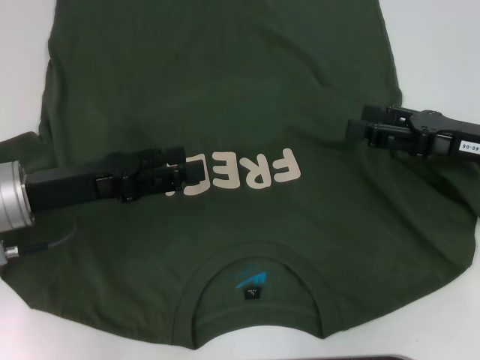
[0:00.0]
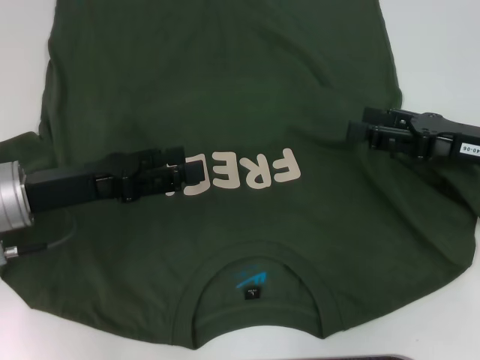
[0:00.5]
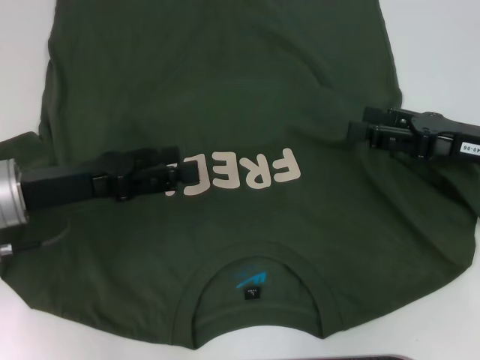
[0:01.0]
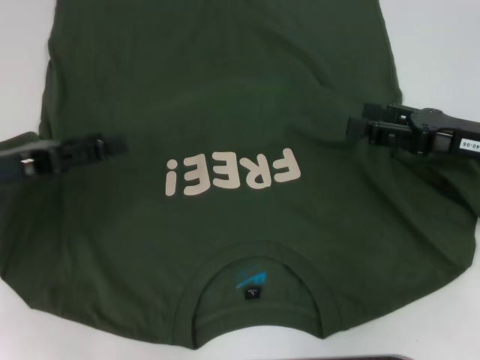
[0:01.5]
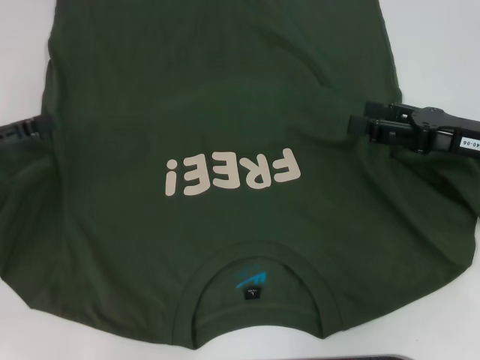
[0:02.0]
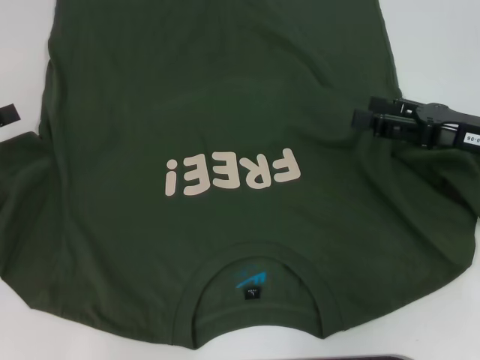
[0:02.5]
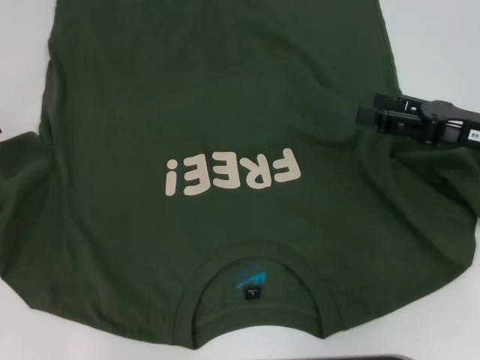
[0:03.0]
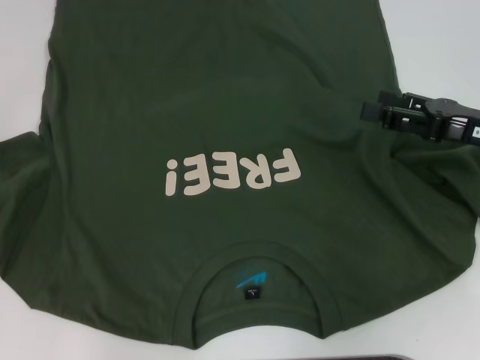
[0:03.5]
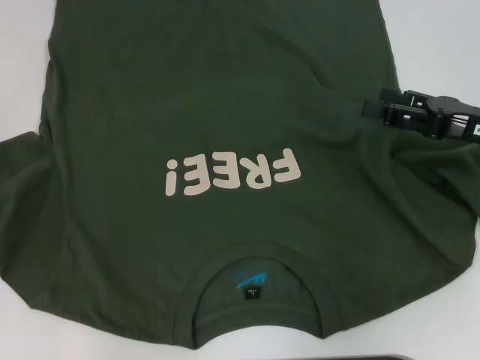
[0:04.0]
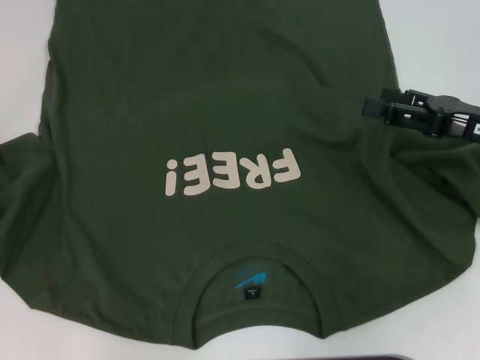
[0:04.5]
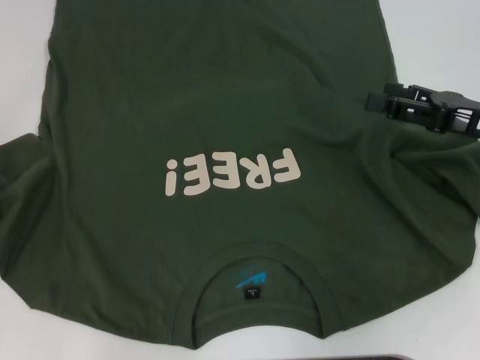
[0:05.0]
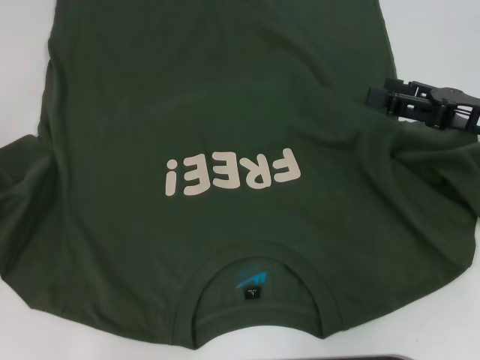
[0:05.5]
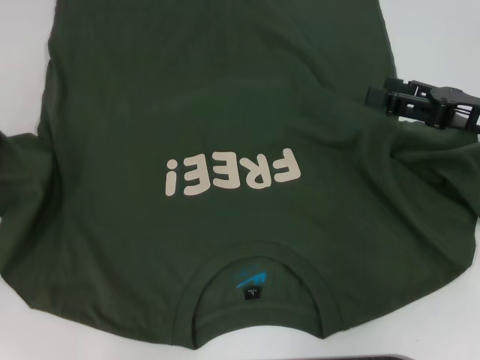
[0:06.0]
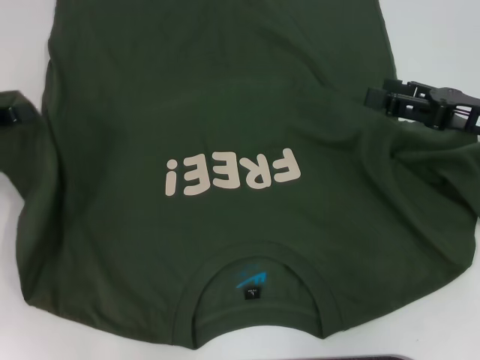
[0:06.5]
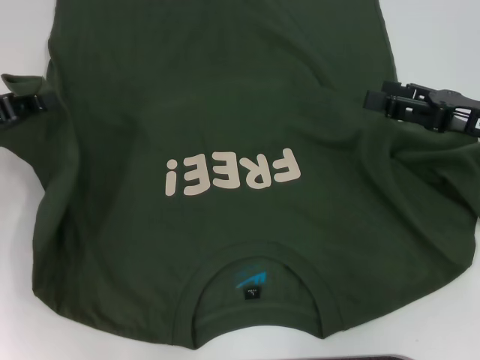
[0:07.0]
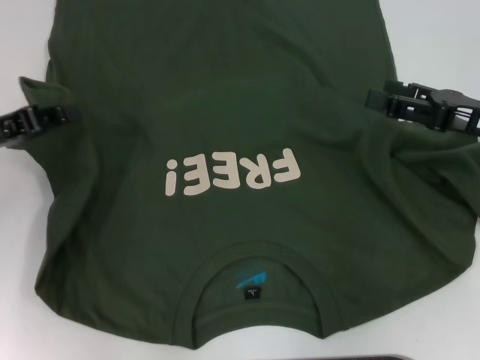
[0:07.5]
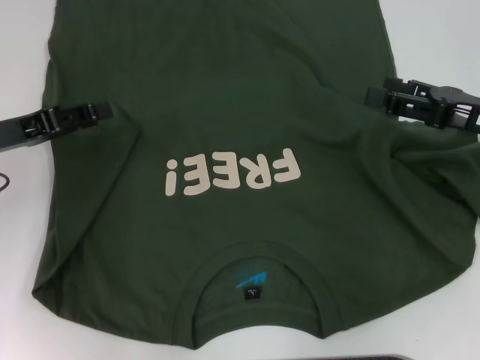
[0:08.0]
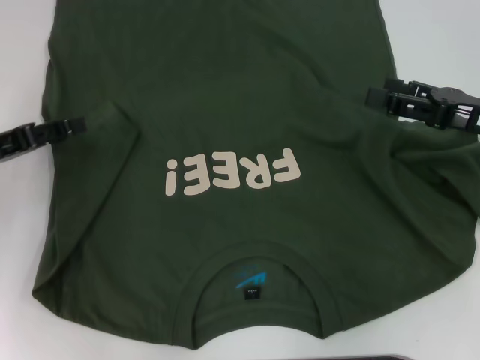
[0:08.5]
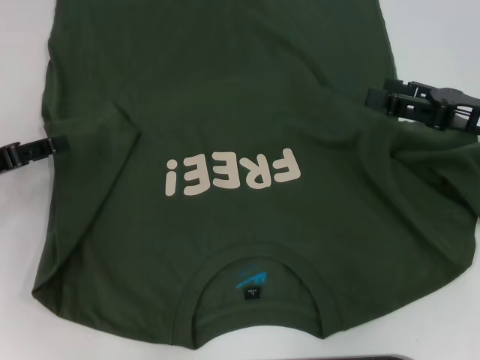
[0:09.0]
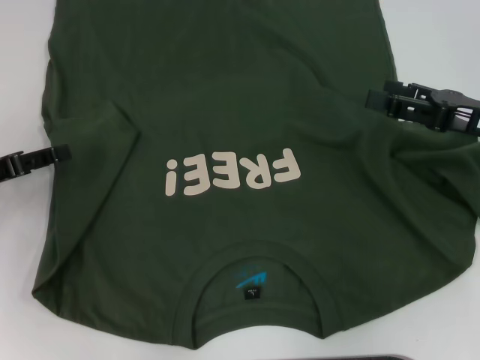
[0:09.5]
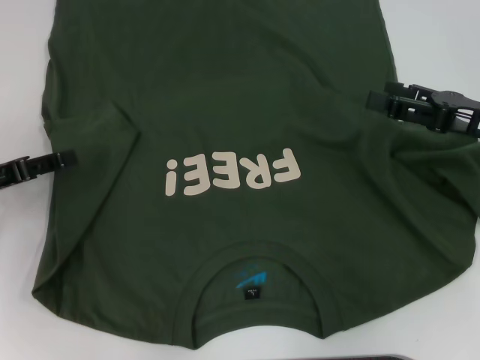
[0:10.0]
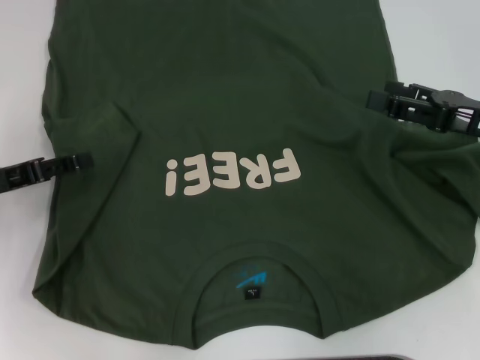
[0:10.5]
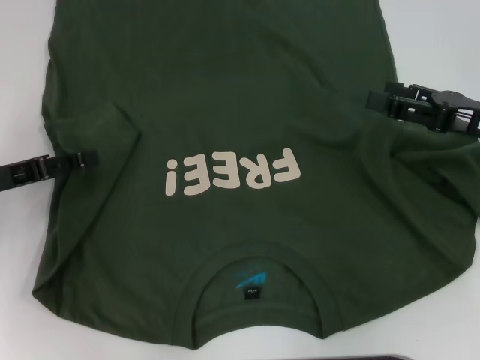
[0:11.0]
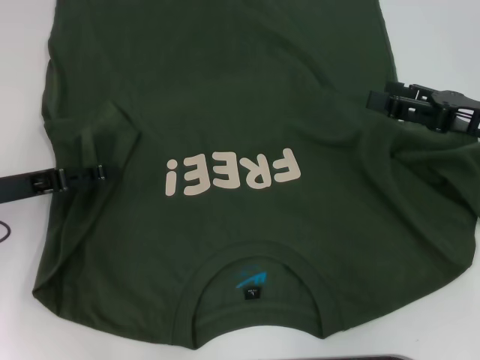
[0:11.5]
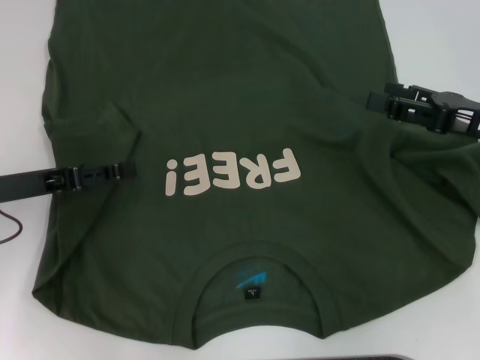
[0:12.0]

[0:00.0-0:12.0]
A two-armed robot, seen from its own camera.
0:00.0 to 0:02.0: The left gripper goes roughly 10 cm to the left.
0:04.0 to 0:06.0: The left gripper closes.
0:06.0 to 0:08.0: The left gripper heads to the right, covering roughly 10 cm.
0:08.0 to 0:10.0: The left gripper moves some 5 cm, and opens.
0:10.0 to 0:12.0: The grippers stay close to where they were, moving slightly.

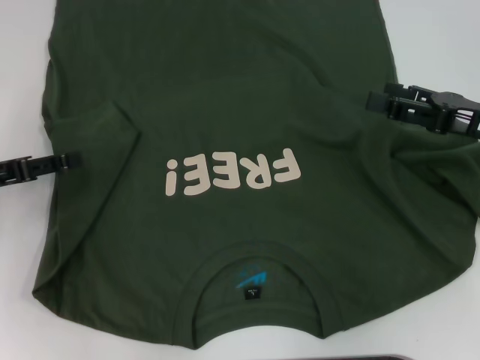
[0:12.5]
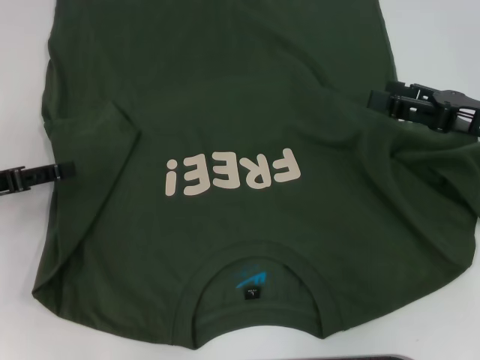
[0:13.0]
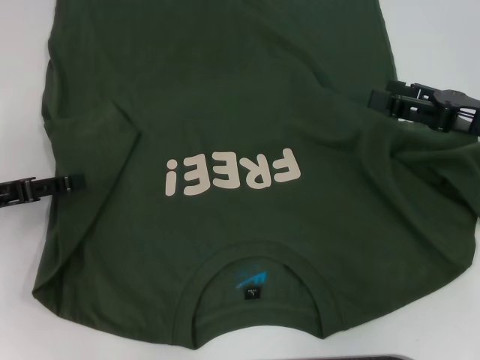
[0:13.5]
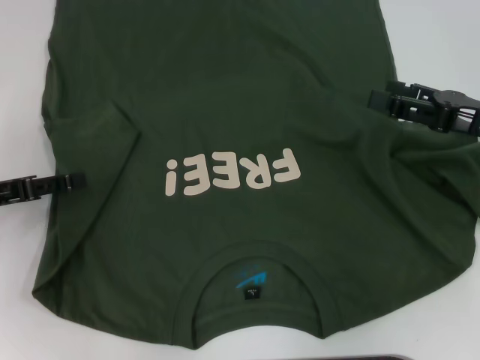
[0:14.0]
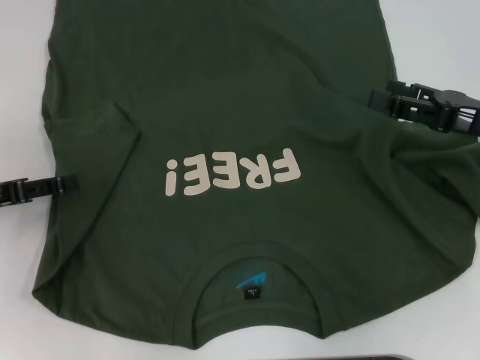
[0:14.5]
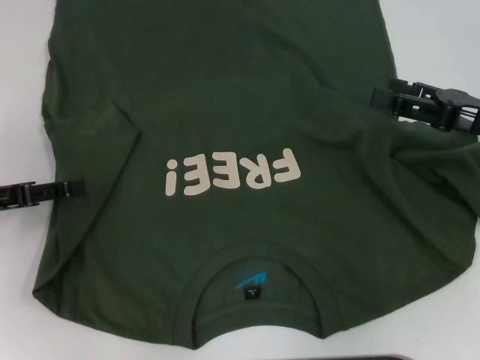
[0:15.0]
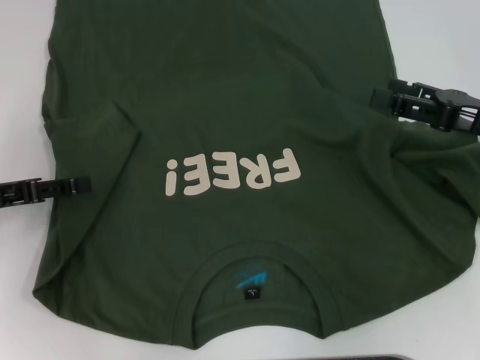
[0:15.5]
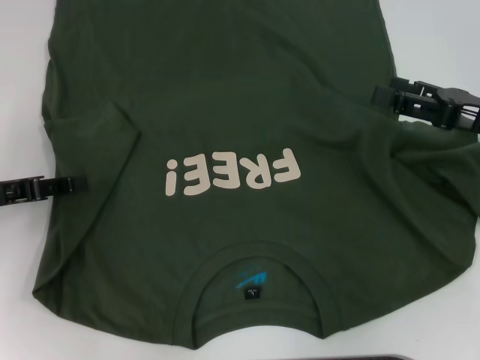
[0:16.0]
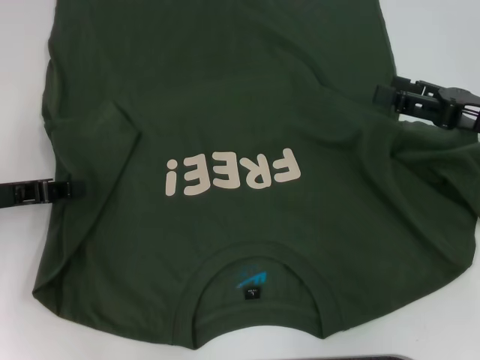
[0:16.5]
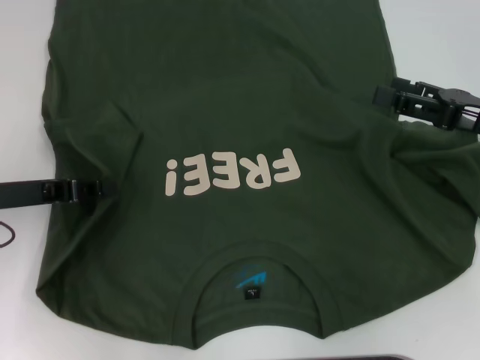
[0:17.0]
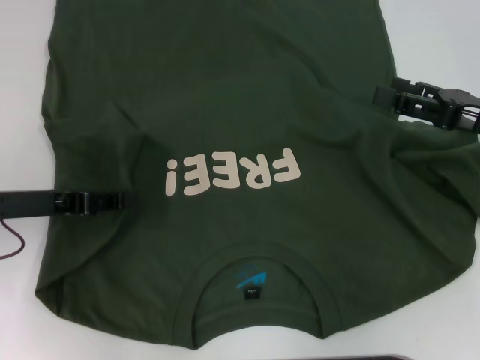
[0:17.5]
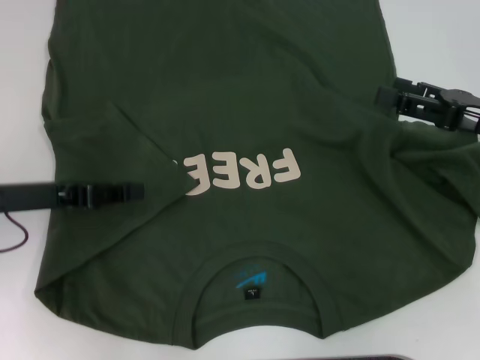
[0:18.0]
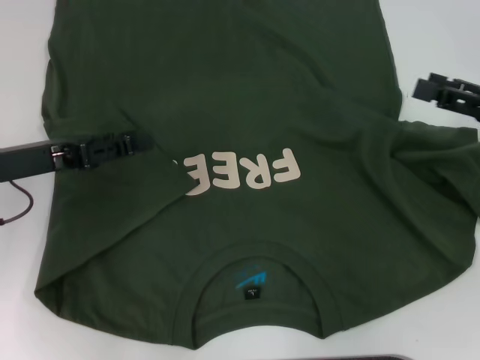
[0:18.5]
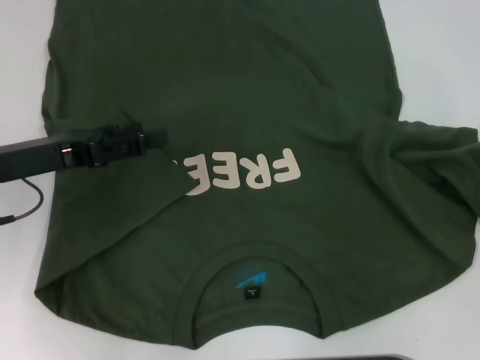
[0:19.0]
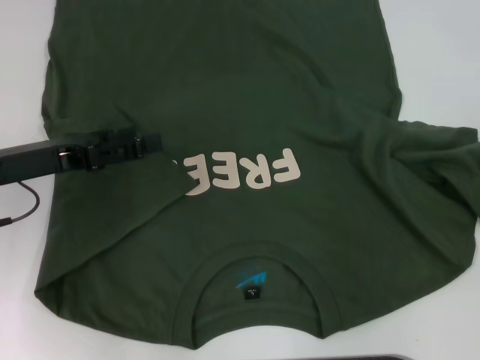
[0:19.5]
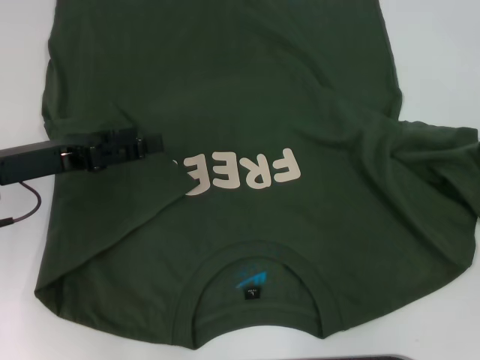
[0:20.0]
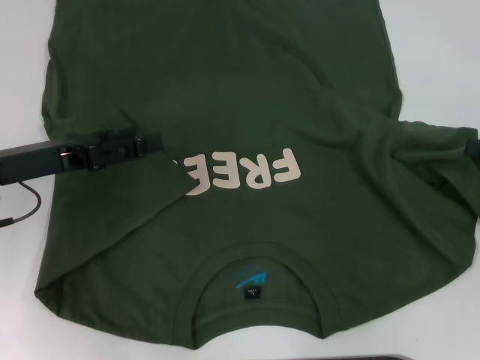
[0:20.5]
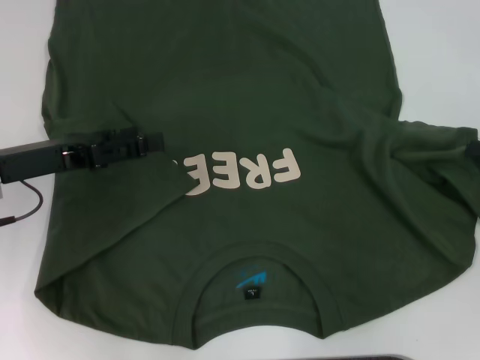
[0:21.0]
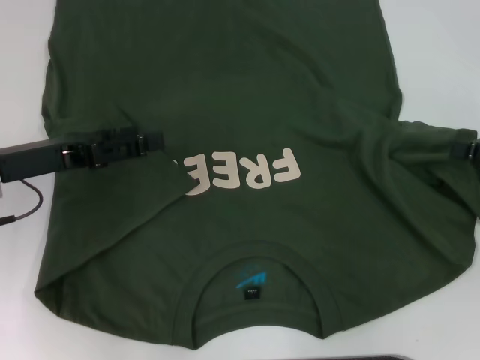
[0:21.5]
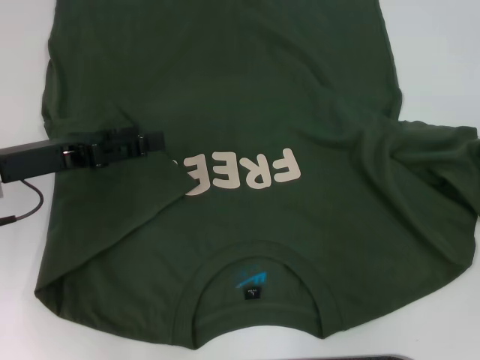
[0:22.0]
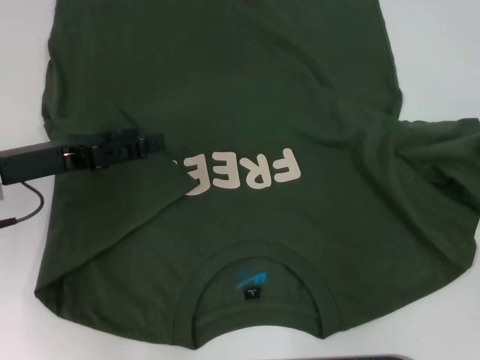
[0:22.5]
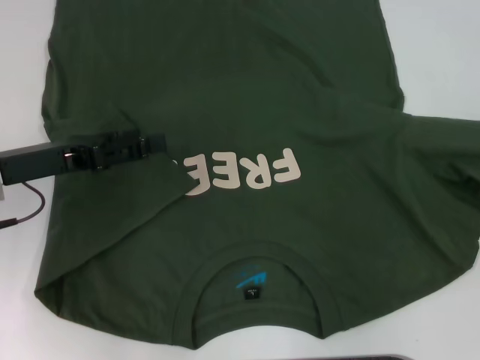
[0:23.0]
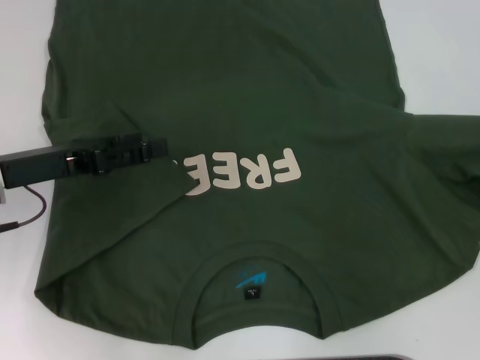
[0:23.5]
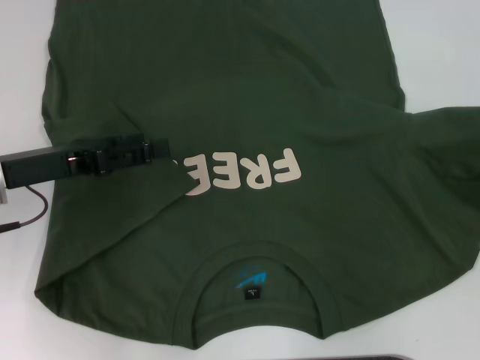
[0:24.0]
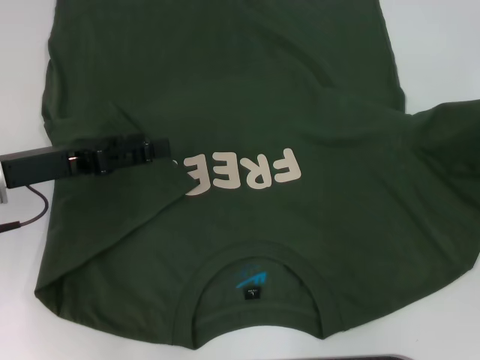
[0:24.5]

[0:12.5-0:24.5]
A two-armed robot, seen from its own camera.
Step, 0:12.5 to 0:17.5: Fold the bottom left sleeve with your left hand.
0:12.5 to 0:14.5: The grippers move only a little.
0:16.5 to 0:18.5: The left gripper shifts by some 5 cm.
0:18.5 to 0:20.5: The right gripper goes about 5 cm to the right. Meanwhile the left gripper opens its fingers.
0:22.5 to 0:24.5: There are only small adjustments of the grippers.

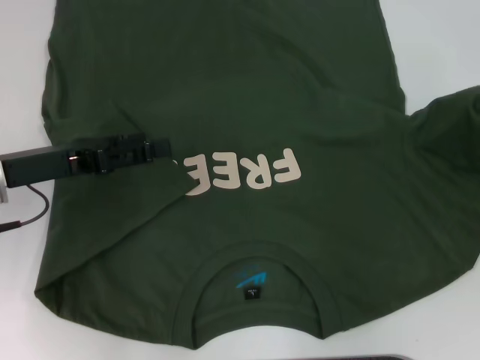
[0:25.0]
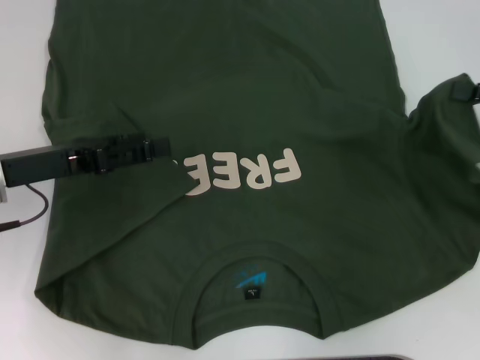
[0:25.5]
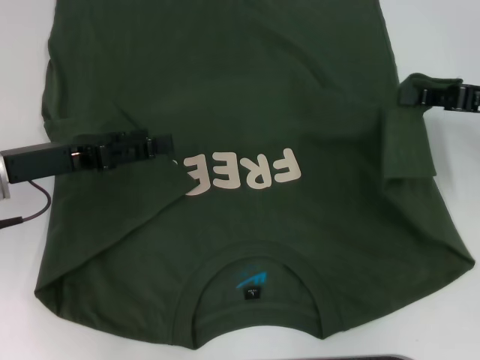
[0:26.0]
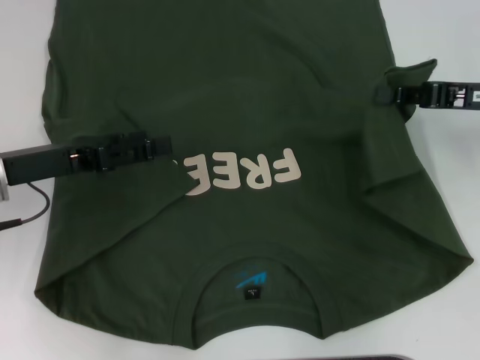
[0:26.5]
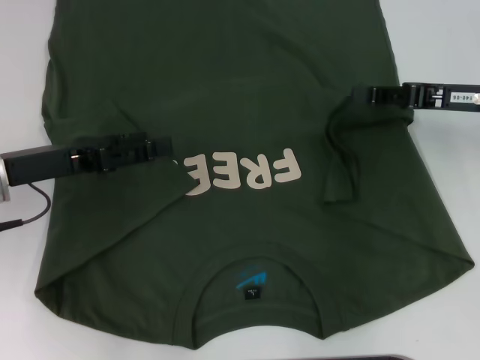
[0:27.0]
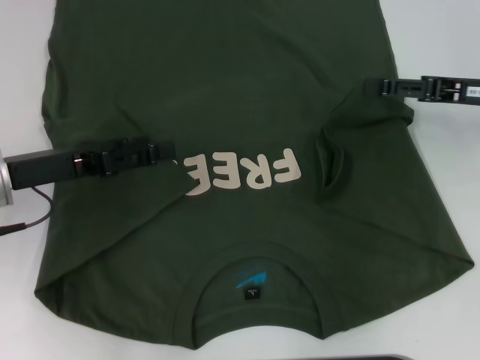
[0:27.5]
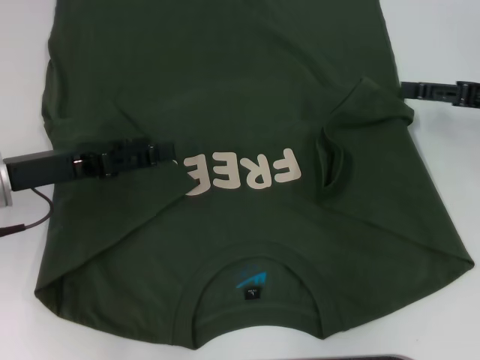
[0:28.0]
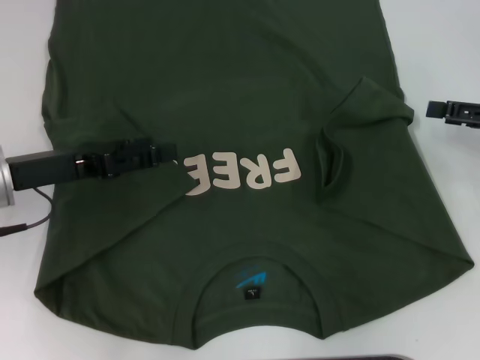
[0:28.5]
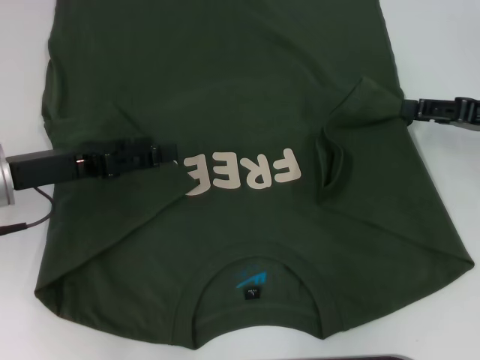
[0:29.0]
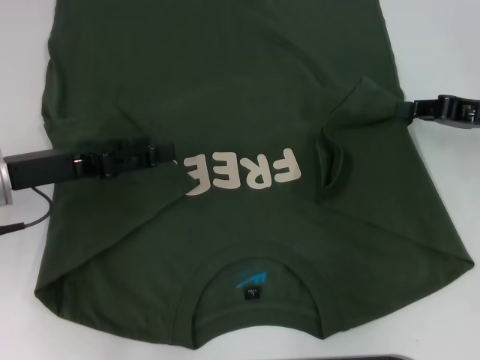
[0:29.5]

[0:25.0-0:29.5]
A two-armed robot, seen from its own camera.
0:25.0 to 0:27.0: The right gripper goes roughly 10 cm to the left and forward.
0:27.0 to 0:29.5: The right gripper opens and closes again.
